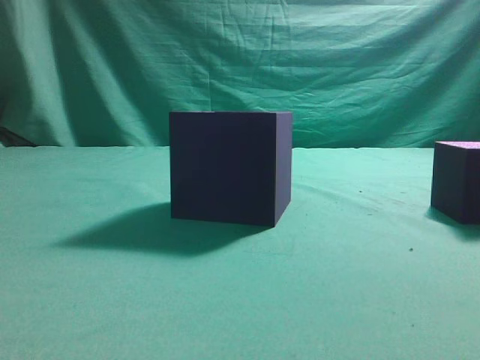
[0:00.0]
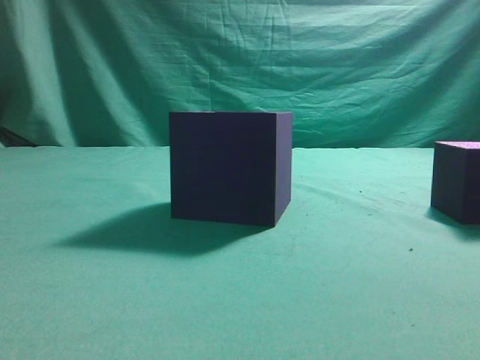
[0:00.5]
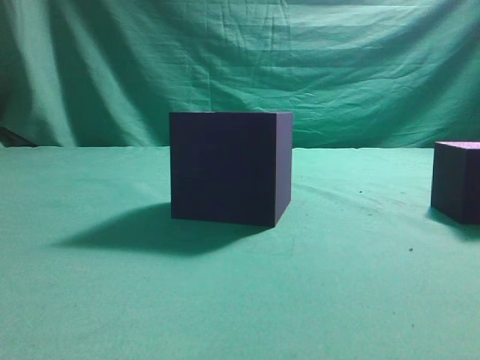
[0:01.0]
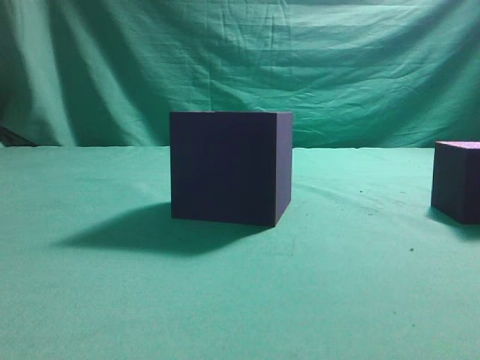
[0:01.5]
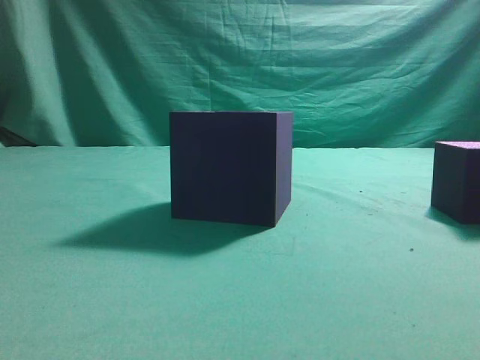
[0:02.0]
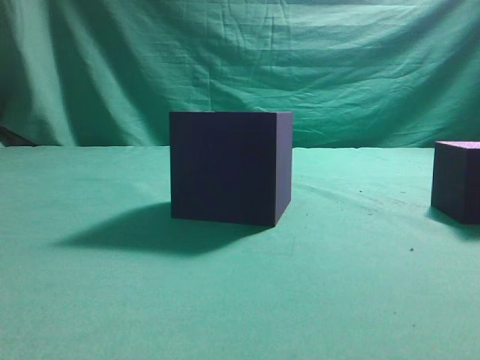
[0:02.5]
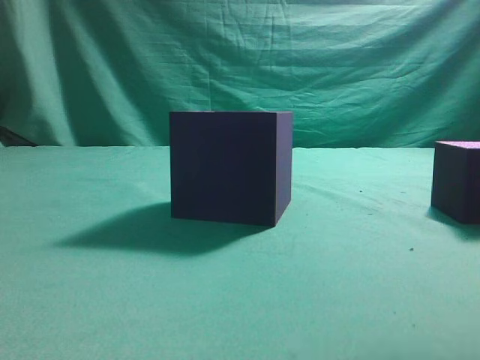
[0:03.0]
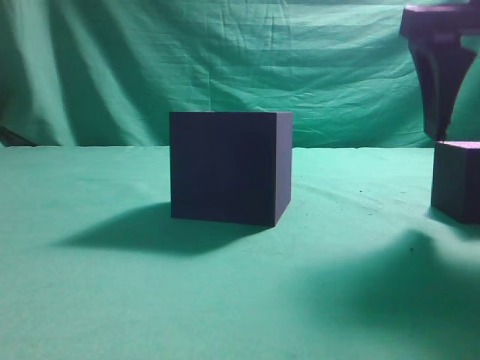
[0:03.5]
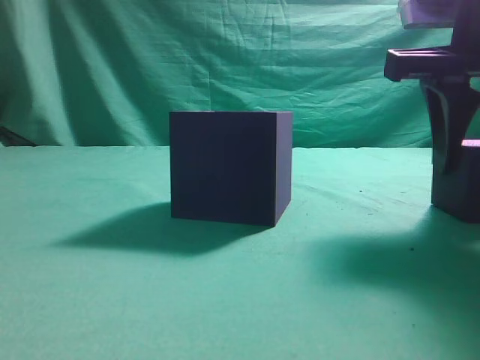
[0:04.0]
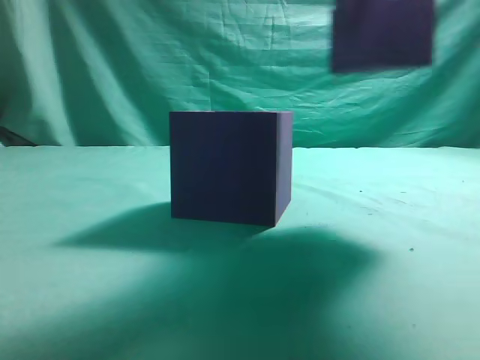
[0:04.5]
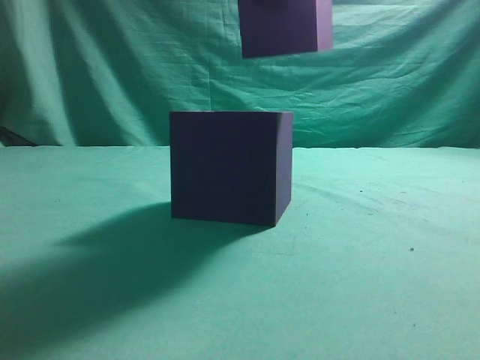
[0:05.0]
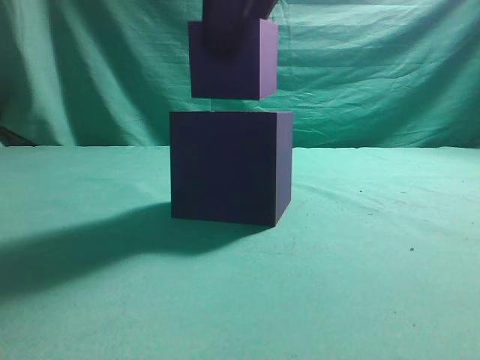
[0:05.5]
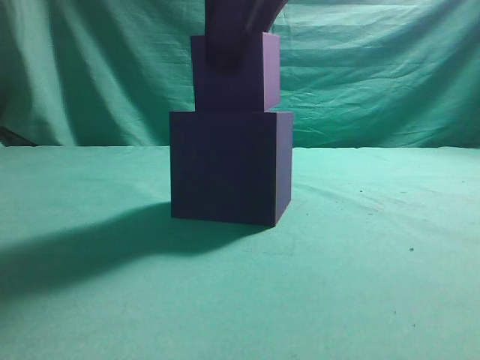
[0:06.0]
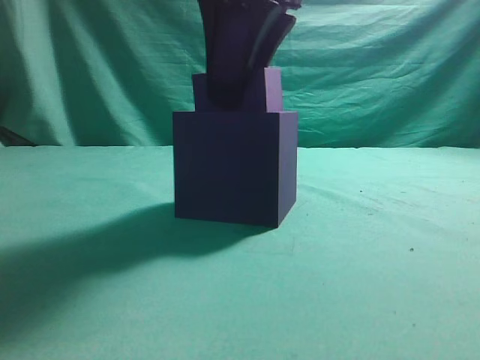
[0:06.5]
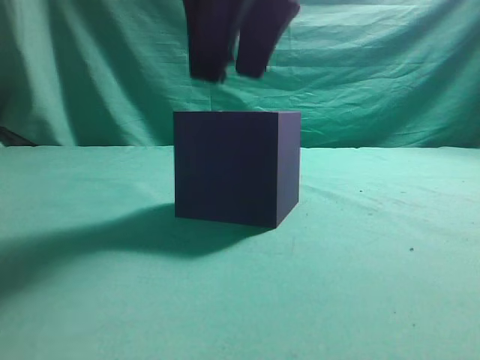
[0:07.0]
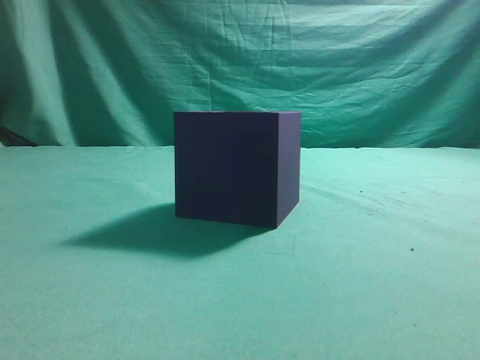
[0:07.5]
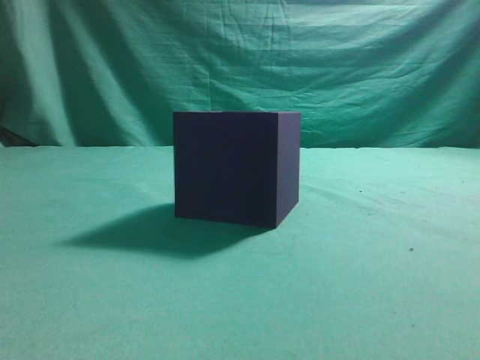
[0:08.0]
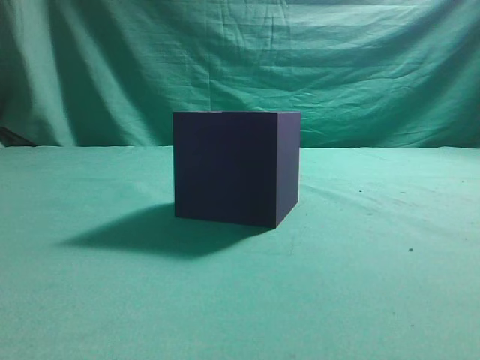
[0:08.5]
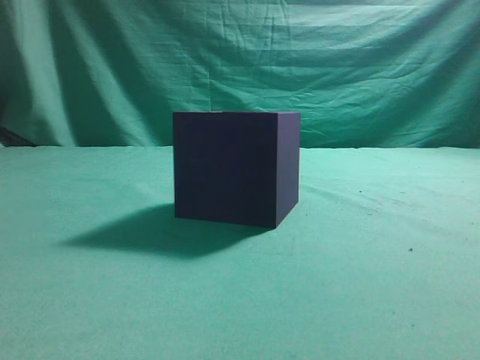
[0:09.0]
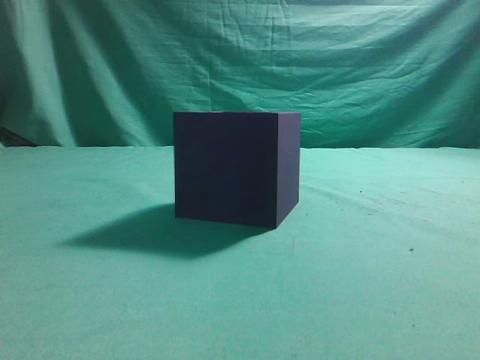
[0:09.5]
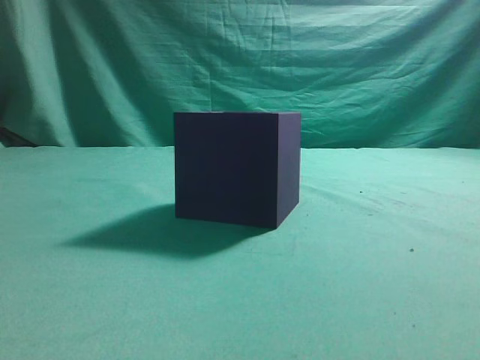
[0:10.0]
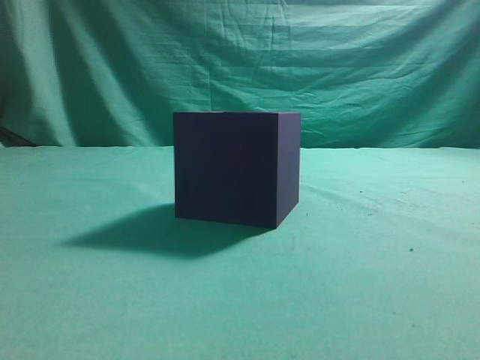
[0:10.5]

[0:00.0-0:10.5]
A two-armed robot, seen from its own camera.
Task of the whole recording: pick up the cube block and place it into the cube groove.
Step, 0:00.0 to 0:04.0: Grasp the cube.
Step, 0:04.5 to 0:07.0: Place cube into the cube-shaped recess.
0:02.0 to 0:04.0: The right gripper travels forward, to the left and downward by approximately 20 cm, and opens up.
0:04.0 to 0:06.5: The right gripper shifts approximately 15 cm to the left.
0:06.5 to 0:08.5: The right gripper goes approximately 35 cm backward, to the right and upward, and closes up.
